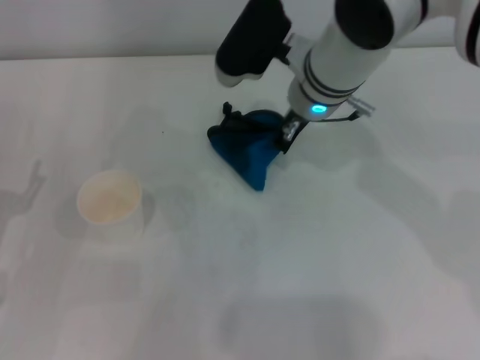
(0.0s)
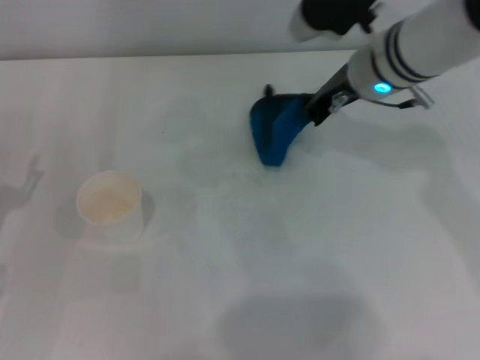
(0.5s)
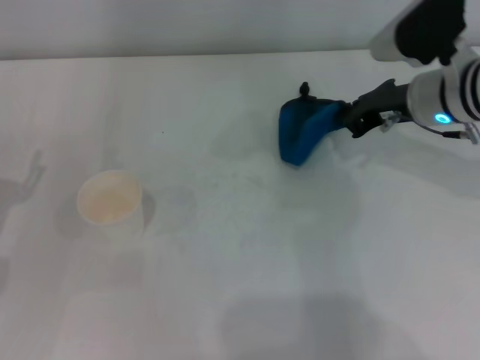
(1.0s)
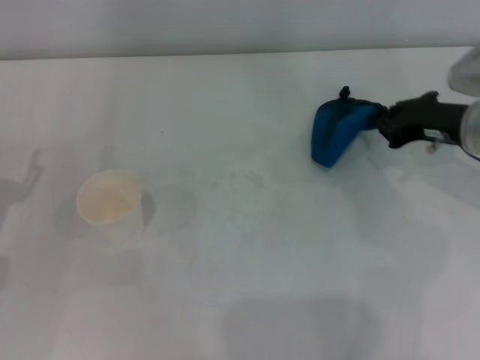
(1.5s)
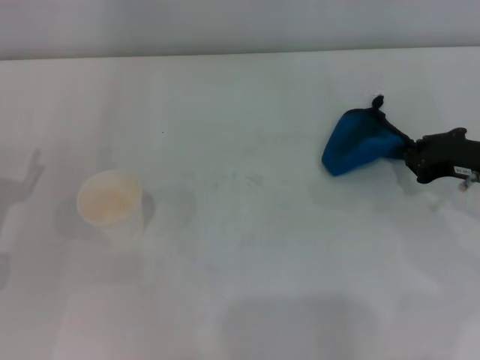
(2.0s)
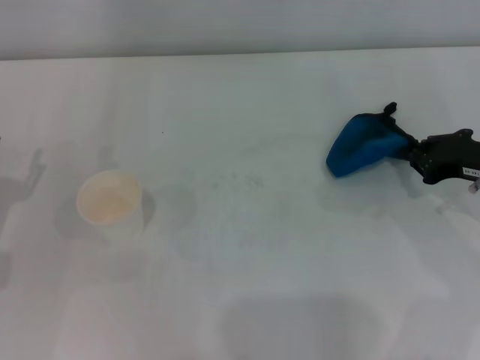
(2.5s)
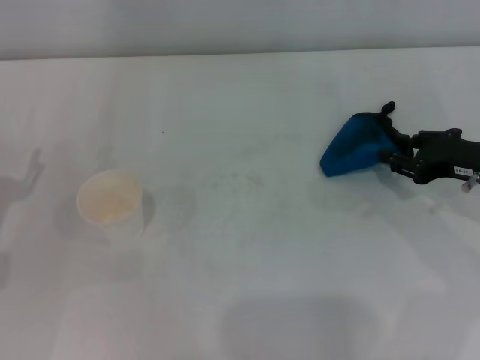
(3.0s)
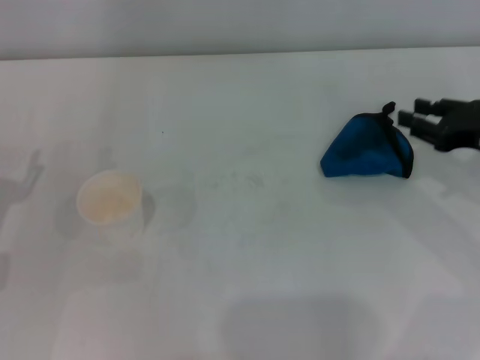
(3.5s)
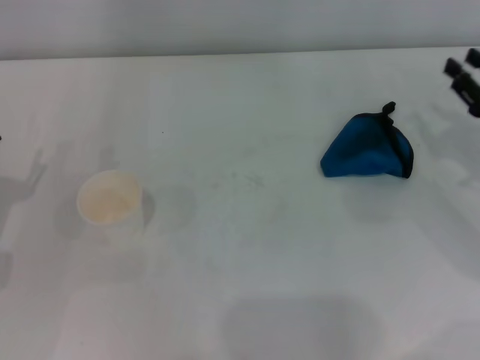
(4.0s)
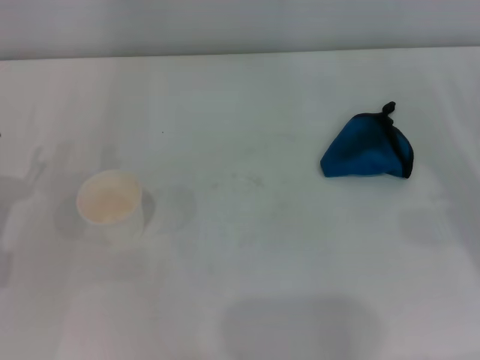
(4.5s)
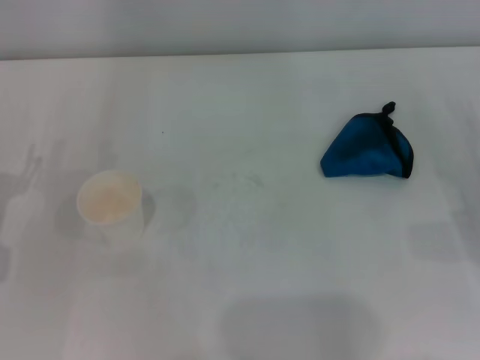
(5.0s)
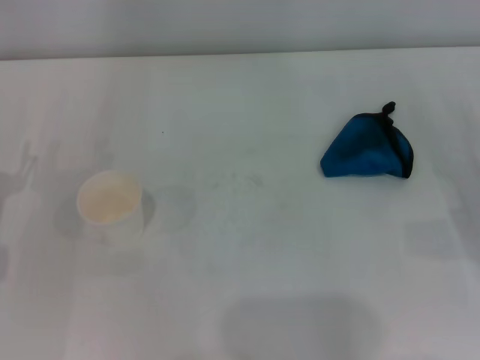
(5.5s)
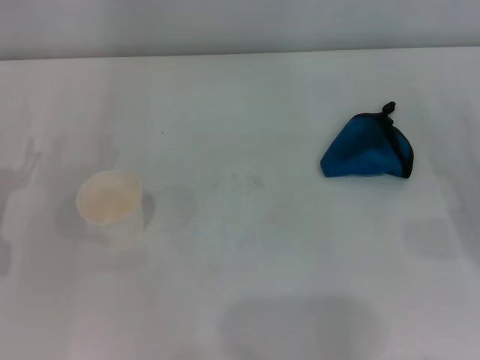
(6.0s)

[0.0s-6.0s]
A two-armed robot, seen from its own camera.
Step, 1.0s to 3.0s: Place the rag on the table with the right gripper.
0.0s to 2.0s: The right gripper moves to the right and backward, about 25 cm.
2.0s to 4.0s: The right gripper opens.
4.0s to 6.0s: The right gripper moves backward, roughly 5 cm.
